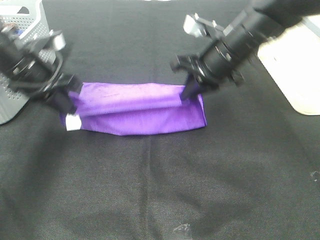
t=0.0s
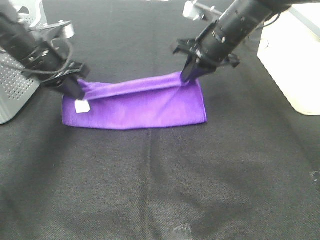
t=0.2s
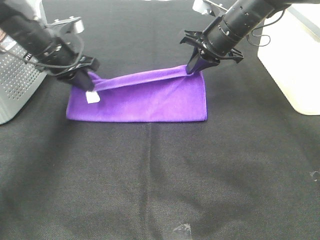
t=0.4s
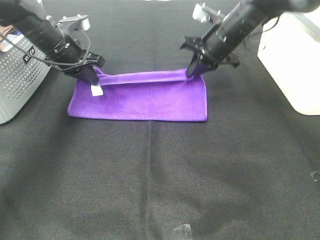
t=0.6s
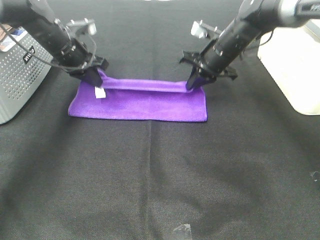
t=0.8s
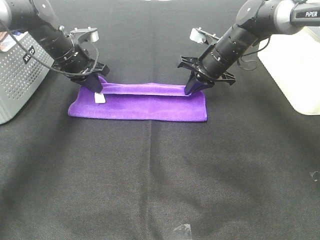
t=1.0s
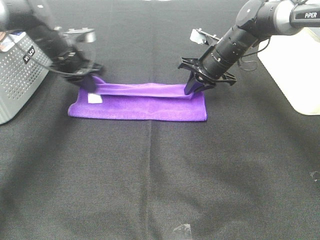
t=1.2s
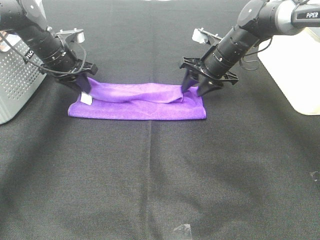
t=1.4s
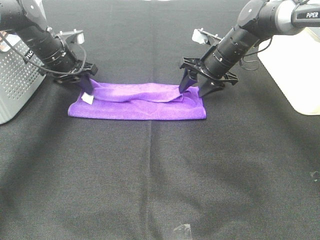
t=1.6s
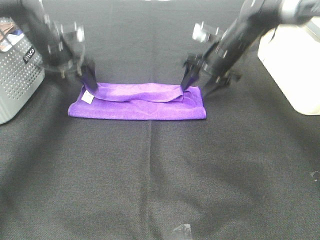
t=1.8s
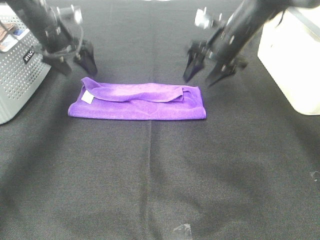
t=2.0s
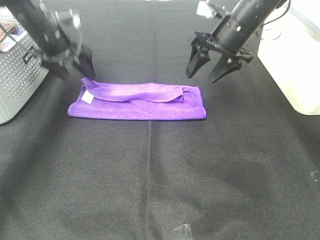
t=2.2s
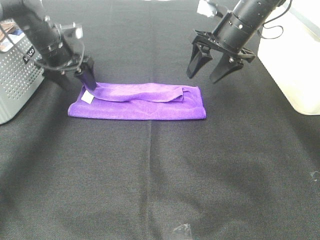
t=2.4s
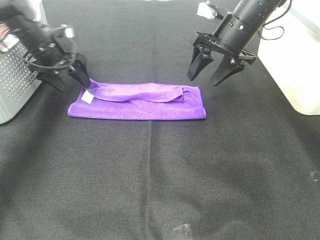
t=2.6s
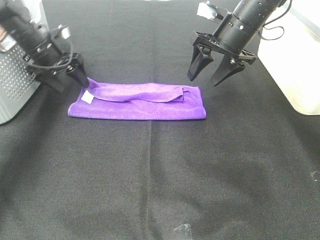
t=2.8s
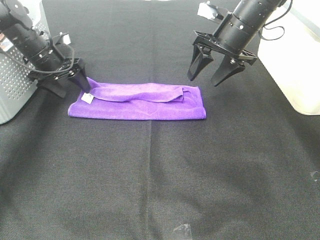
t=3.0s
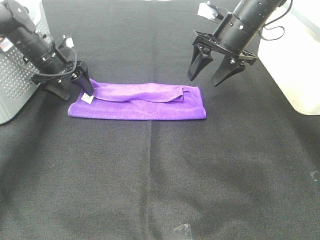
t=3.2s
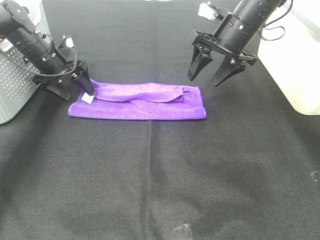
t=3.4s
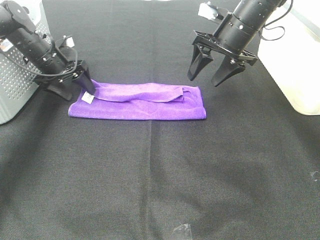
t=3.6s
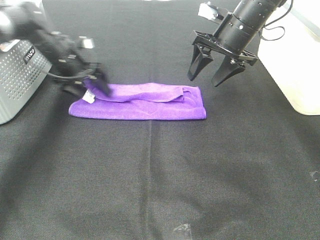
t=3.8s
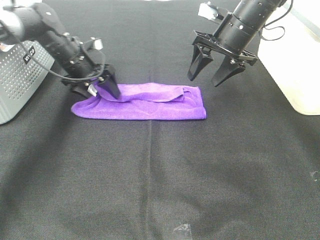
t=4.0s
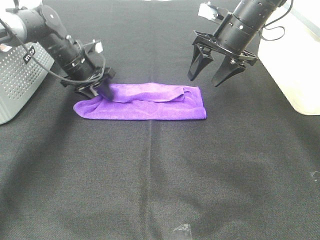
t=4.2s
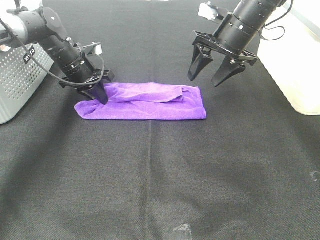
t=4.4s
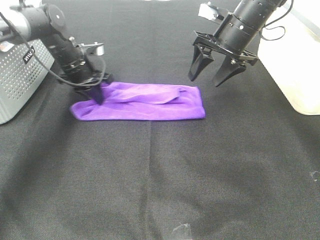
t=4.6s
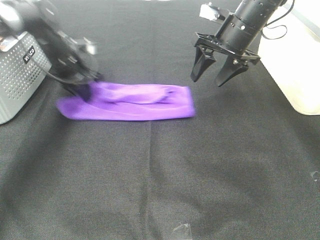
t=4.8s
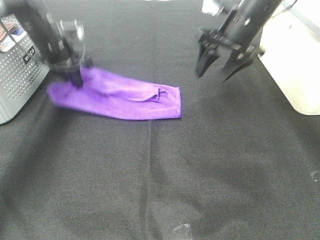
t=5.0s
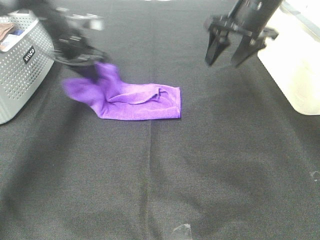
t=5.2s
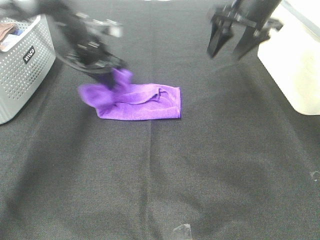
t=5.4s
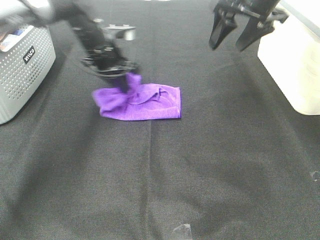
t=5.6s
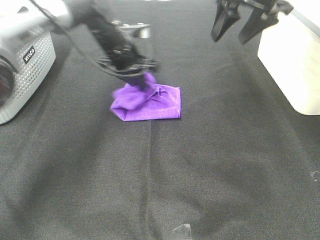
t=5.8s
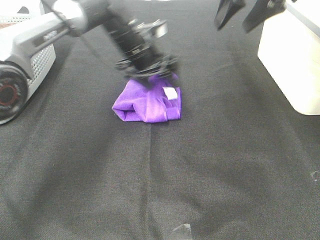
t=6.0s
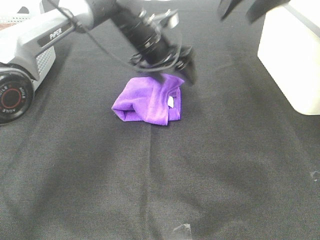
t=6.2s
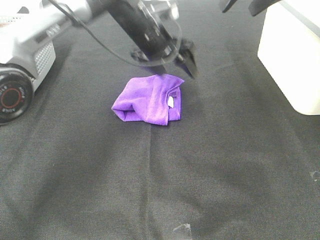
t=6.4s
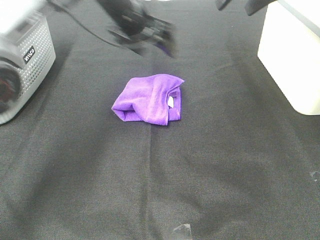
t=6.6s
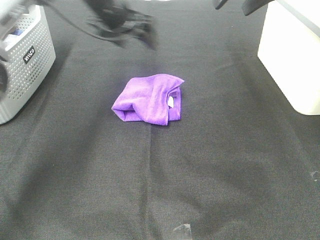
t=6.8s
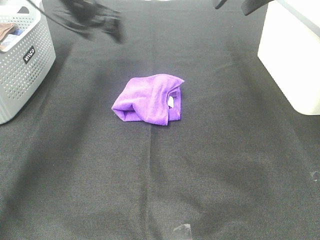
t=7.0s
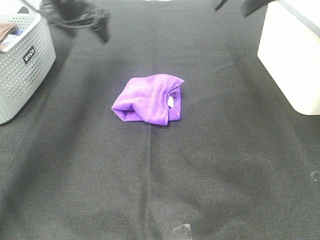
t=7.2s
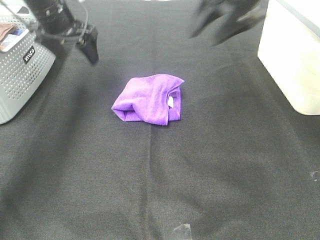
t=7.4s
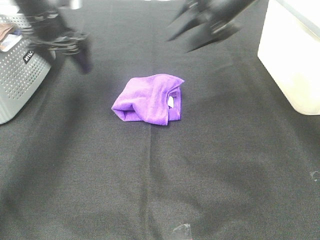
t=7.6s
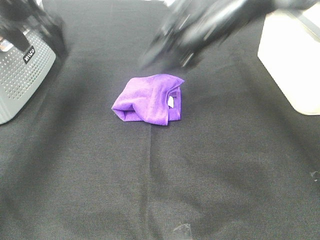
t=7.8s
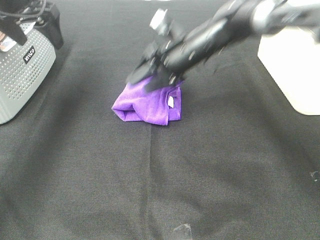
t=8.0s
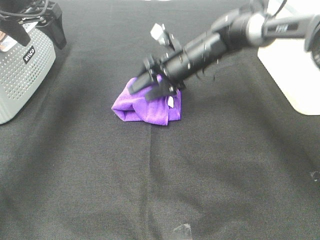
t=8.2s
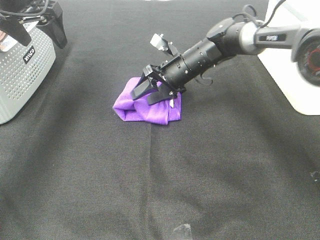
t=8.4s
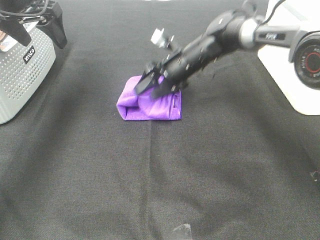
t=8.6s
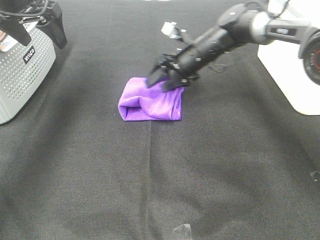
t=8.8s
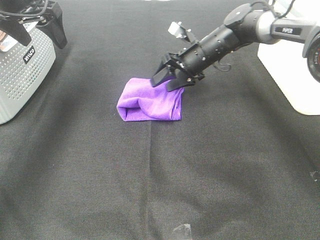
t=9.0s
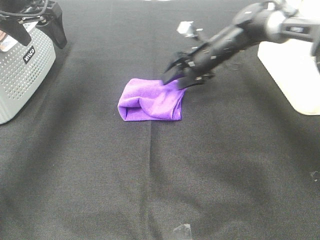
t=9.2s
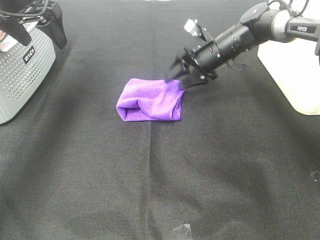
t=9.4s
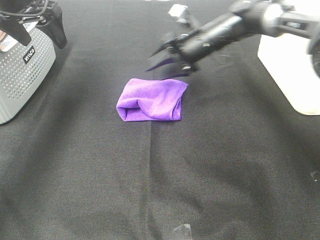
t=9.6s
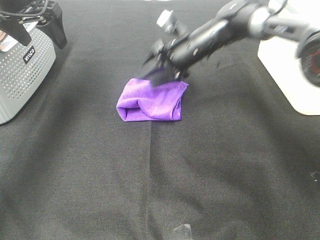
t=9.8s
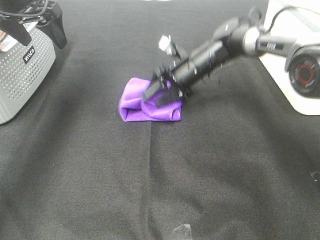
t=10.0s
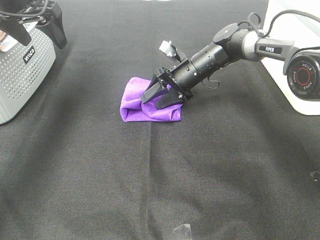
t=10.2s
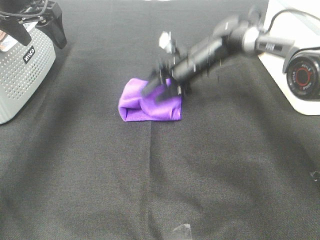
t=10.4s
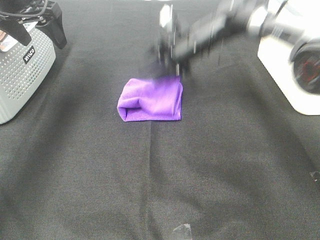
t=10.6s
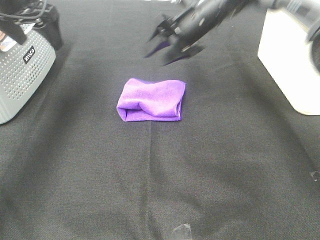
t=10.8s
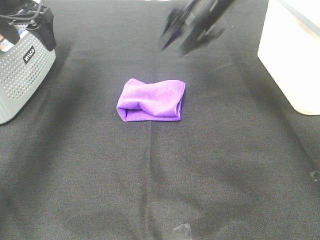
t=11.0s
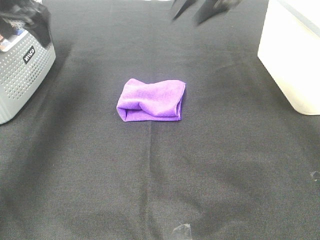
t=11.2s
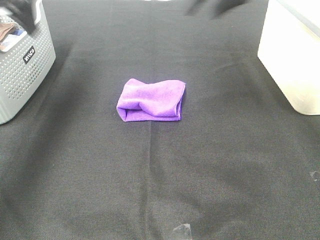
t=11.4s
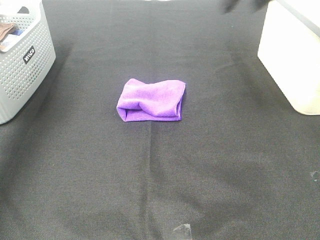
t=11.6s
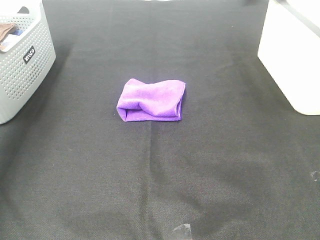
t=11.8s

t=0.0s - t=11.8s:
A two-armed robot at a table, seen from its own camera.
Task of the whole recording: Fold towels.
Step, t=1.4s - t=5.8s: Left hand: fold the purple towel from left to right.
Step, t=6.0s - t=8.4s: Right hand: adjust the purple towel.
t=0.0s - t=1.4s: Both grippers travel together forward and downward, approximately 15 cm. The right gripper opens.
t=1.4s - t=3.0s: The left gripper opens. Meanwhile the right gripper heads upward, covering some 10 cm.
t=3.0s - t=4.4s: The left gripper goes approximately 5 cm to the right, and closes its fingers.
t=4.4s - t=6.0s: The left gripper moves to the right and upward, about 20 cm, and opens. Meanwhile the right gripper travels upward by some 15 cm.
t=6.0s - t=7.4s: The right gripper goes about 5 cm downward. Meanwhile the left gripper goes about 15 cm to the left.
t=7.4s - t=8.8s: The left gripper is displaced upward by some 5 cm. Meanwhile the right gripper travels downward by approximately 15 cm.
t=8.8s - t=10.4s: The grippers make only small movements.
t=10.4s - t=11.8s: The left gripper moves to the left, backward and upward, roughly 20 cm. Meanwhile the right gripper travels upward, backward and to the right by roughly 35 cm.

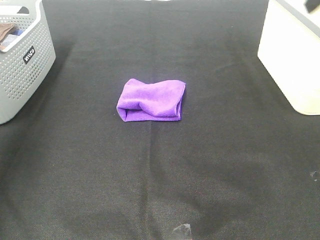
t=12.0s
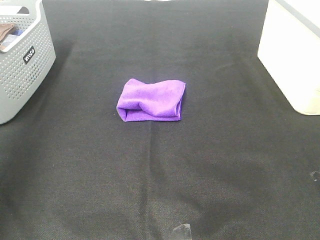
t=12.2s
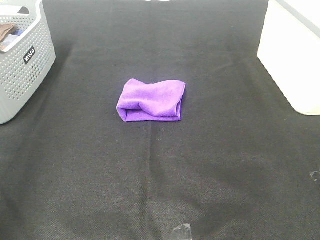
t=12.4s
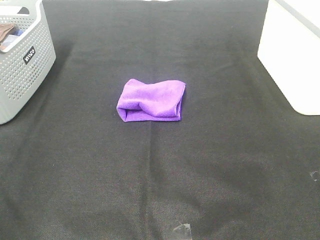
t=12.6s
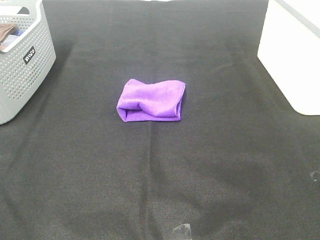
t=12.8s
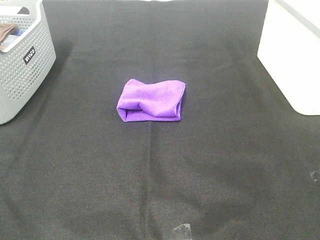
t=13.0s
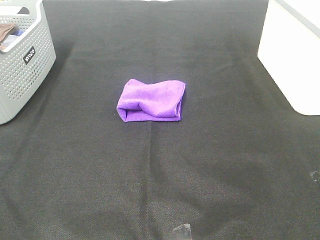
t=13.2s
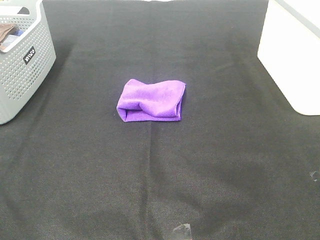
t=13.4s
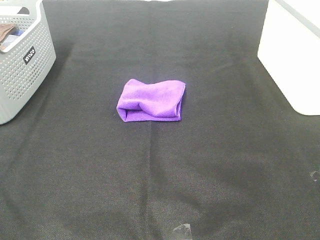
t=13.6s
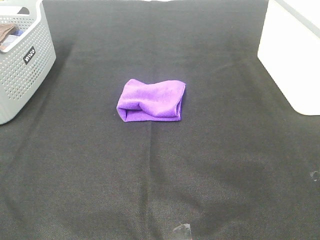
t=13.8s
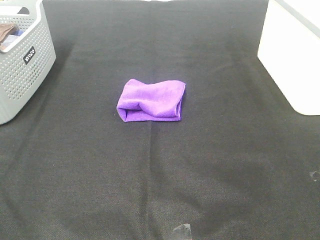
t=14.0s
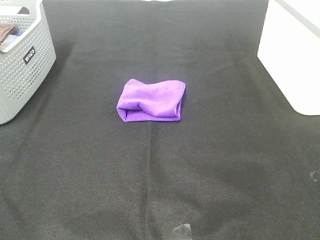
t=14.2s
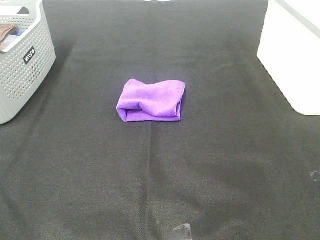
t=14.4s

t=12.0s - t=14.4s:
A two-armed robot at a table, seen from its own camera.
Task of the whole recording: Fold towels.
t=12.0s - t=13.2s: The left gripper shifts some 30 cm backward.
t=13.2s - t=14.4s: Both grippers stay put.
